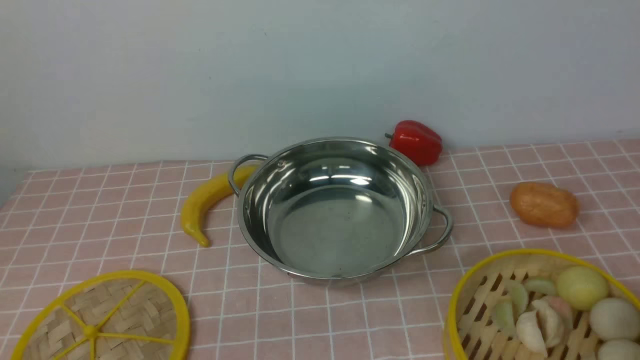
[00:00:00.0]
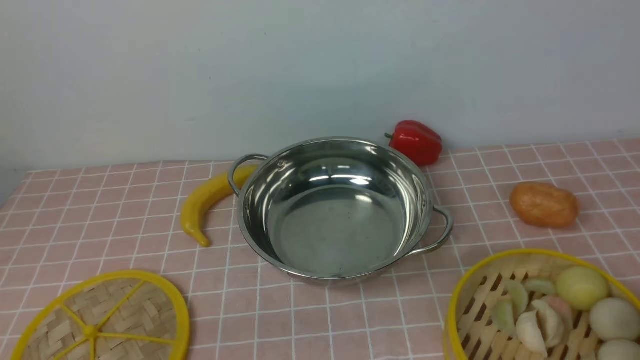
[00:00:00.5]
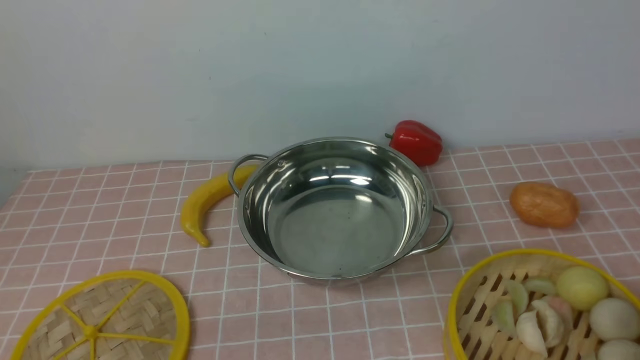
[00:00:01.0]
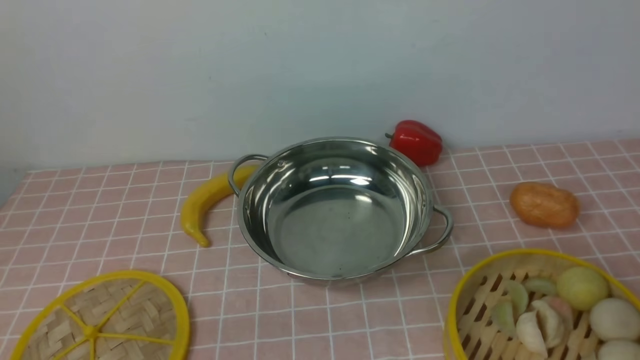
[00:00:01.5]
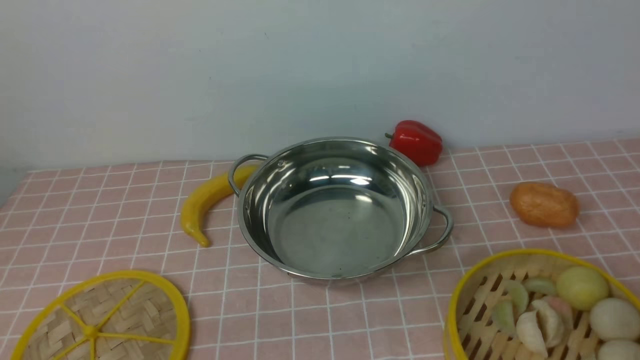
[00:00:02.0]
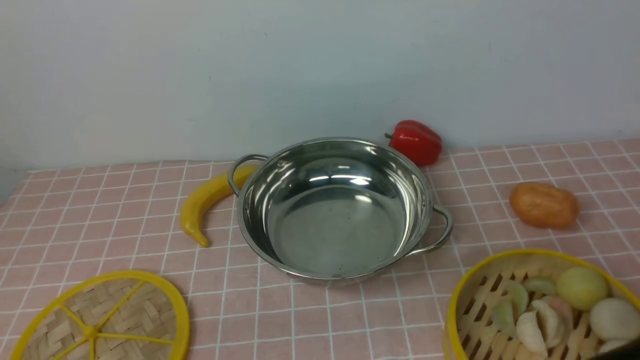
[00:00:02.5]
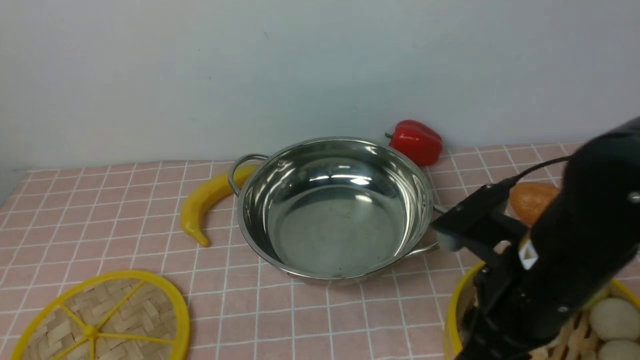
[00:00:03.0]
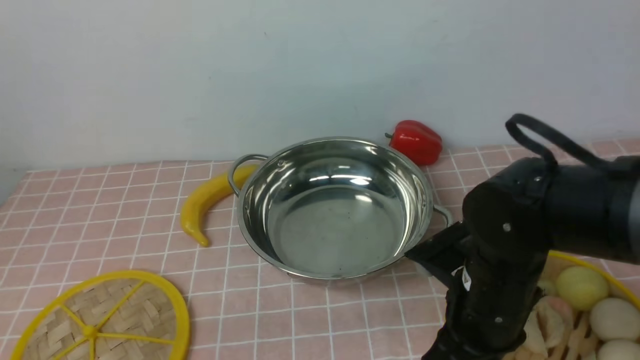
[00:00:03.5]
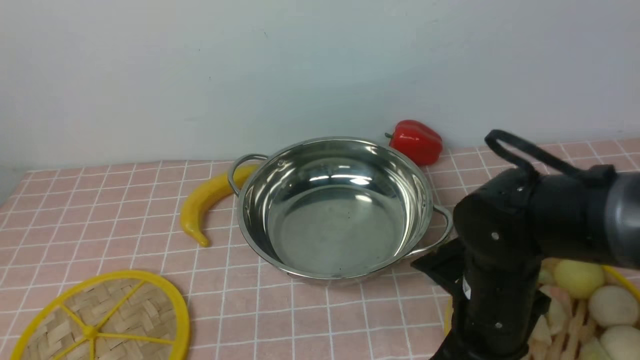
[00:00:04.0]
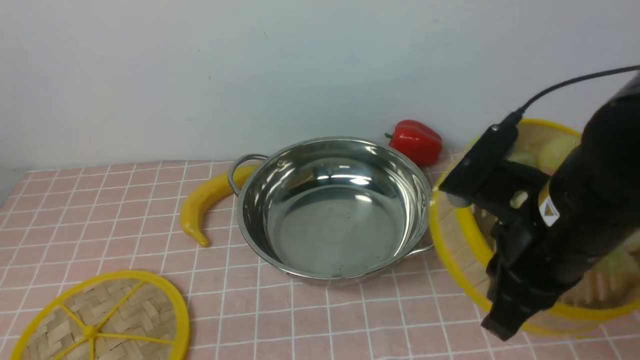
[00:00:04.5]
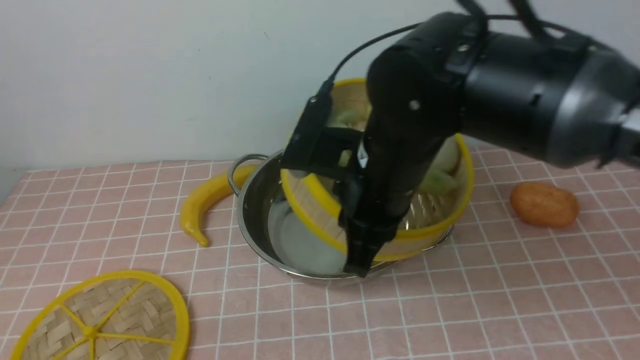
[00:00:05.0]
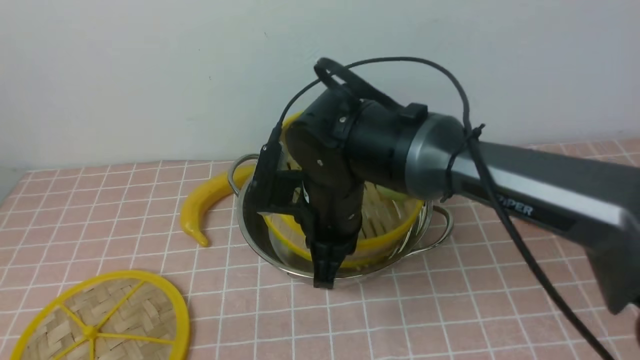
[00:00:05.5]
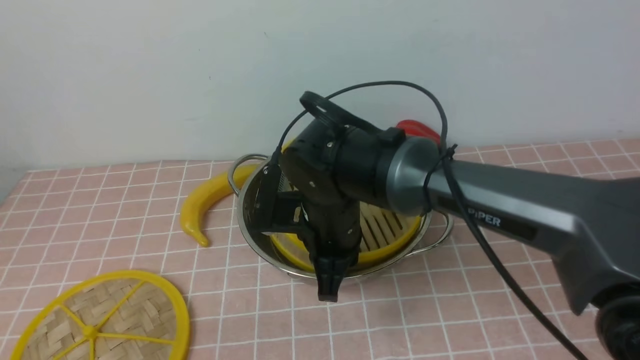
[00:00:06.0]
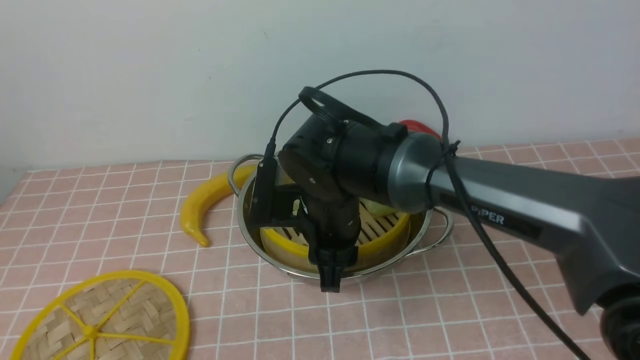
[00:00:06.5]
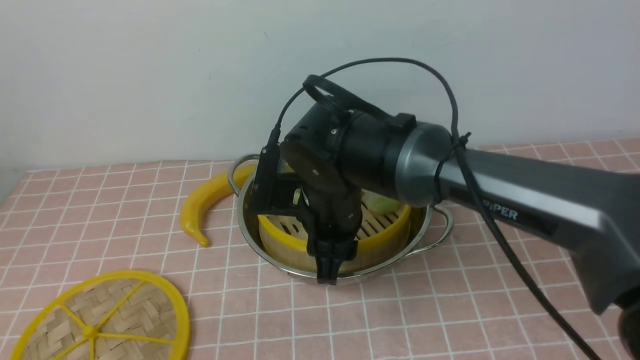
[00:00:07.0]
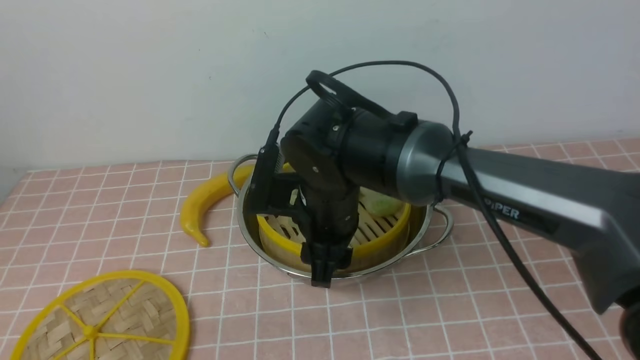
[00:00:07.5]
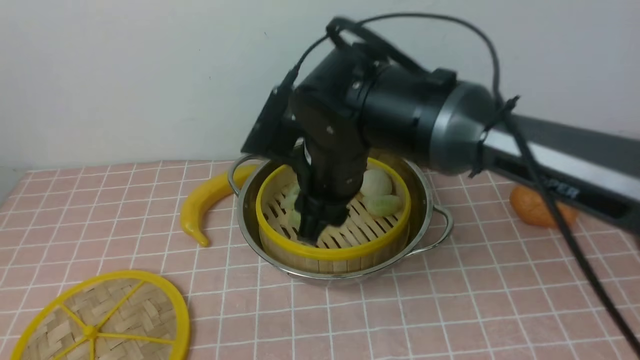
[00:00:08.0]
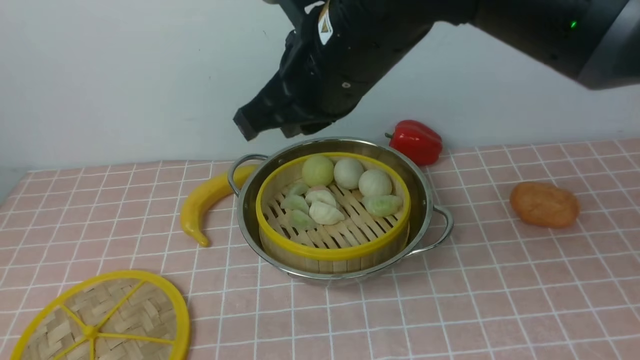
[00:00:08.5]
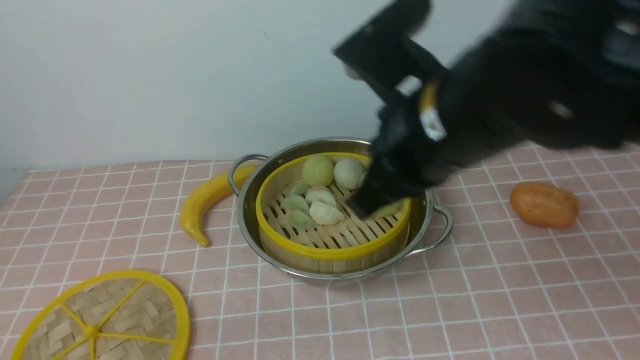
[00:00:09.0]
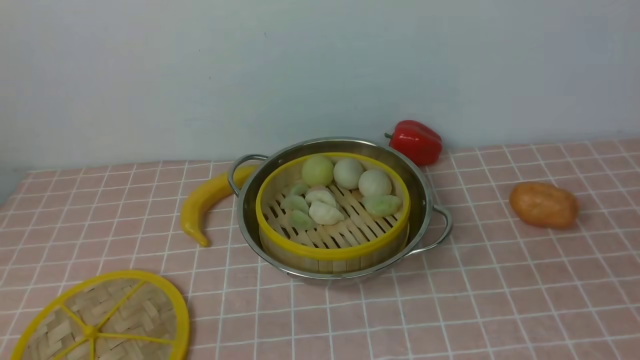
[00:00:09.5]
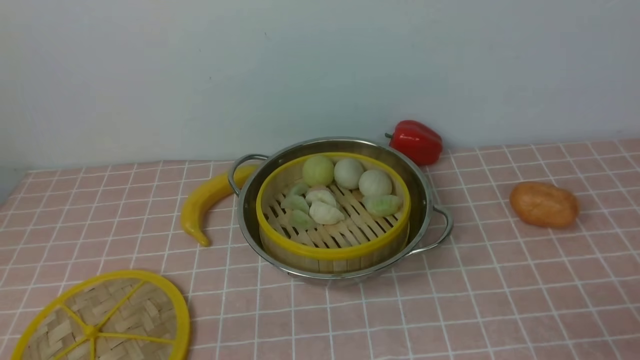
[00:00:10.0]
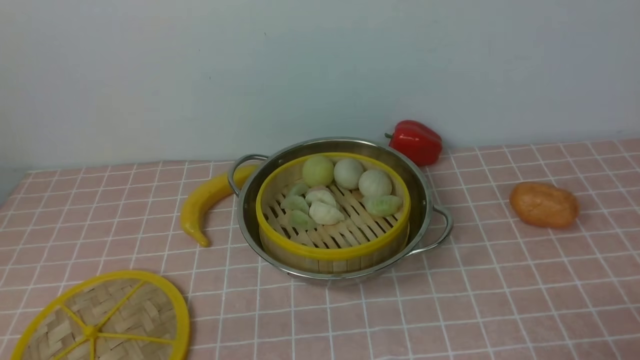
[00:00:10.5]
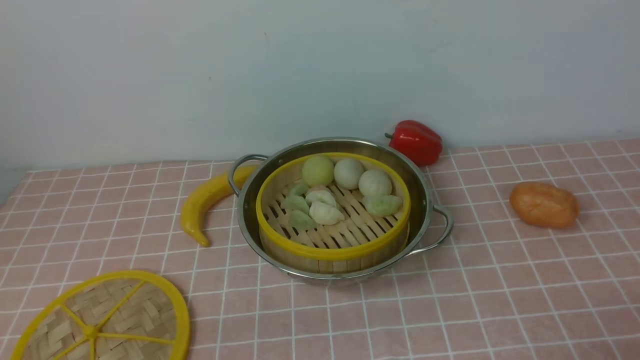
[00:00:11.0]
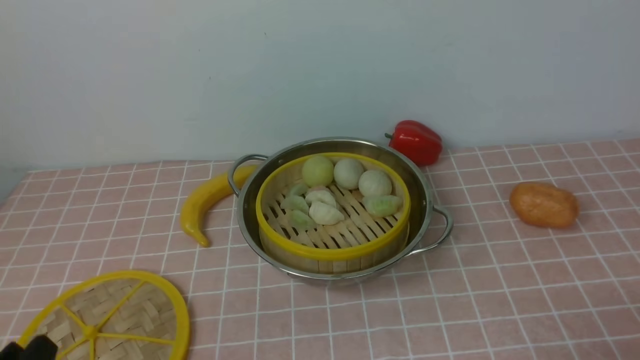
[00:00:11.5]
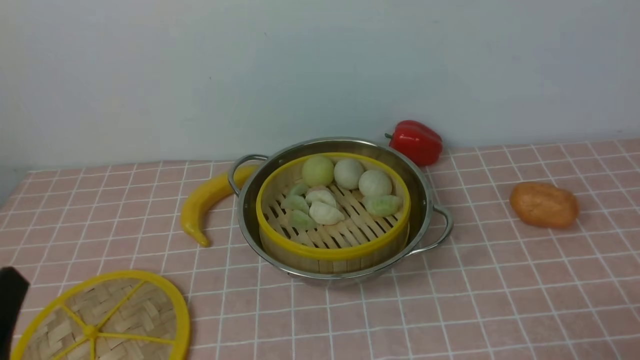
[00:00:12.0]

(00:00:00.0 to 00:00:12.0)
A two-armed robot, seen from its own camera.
Task of the whole recording: place the steamer in the pot on the pink tablecloth, and put the lid on the steamer.
Step, 00:00:00.0 - 00:00:04.0: use the right arm to lift the steamer closest to it.
Step, 00:00:04.5 - 00:00:07.5: use the right arm to put the steamer into the iron steamer pot in the middle.
00:00:02.0 - 00:00:04.0: The right gripper is displaced forward, to the left and downward by about 25 cm, and closes up.
00:00:04.0 - 00:00:06.0: The right gripper is displaced to the left and forward by some 15 cm.
00:00:06.0 - 00:00:08.0: The right gripper travels upward by approximately 10 cm, and opens its fingers.
00:00:08.0 - 00:00:10.0: The right gripper goes approximately 40 cm to the right and backward, and closes.
00:00:10.0 - 00:00:12.0: The left gripper goes some 10 cm upward.

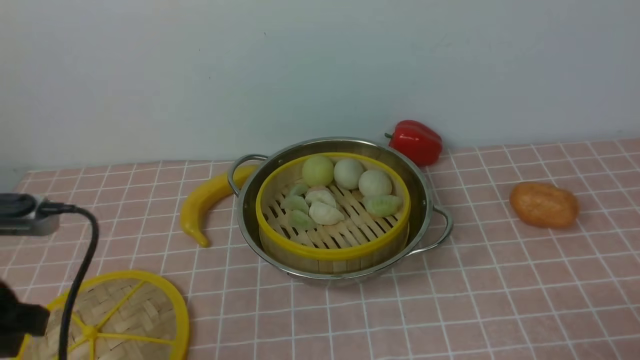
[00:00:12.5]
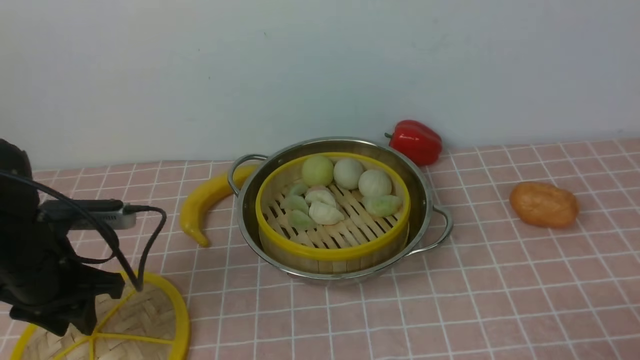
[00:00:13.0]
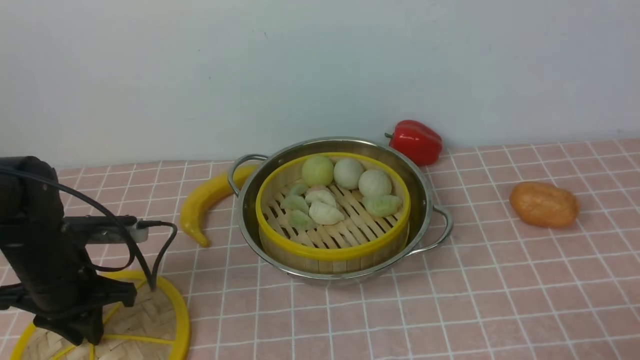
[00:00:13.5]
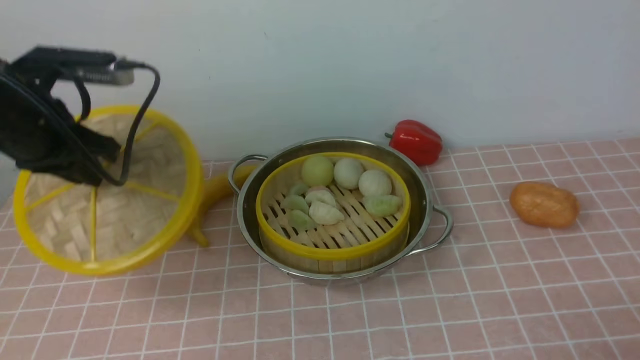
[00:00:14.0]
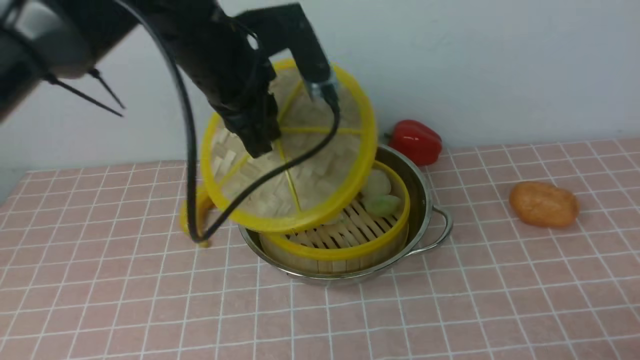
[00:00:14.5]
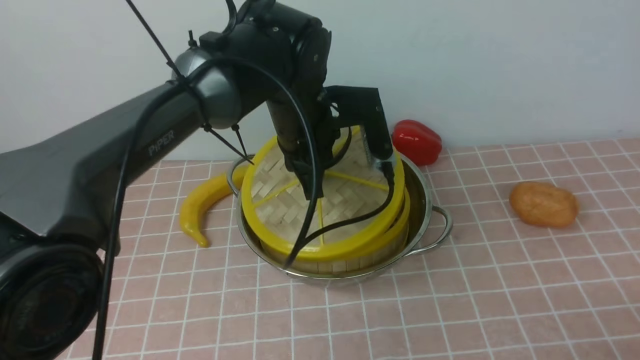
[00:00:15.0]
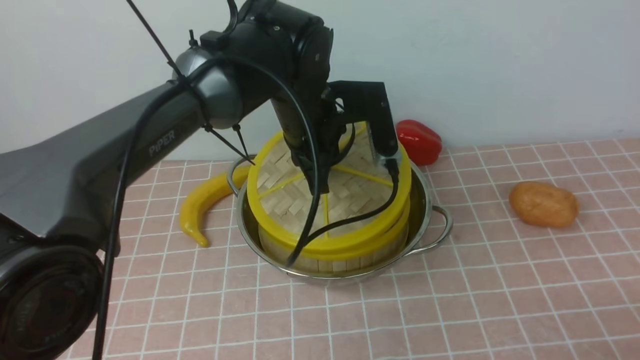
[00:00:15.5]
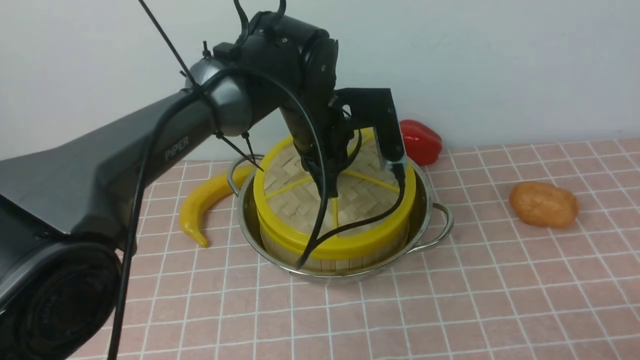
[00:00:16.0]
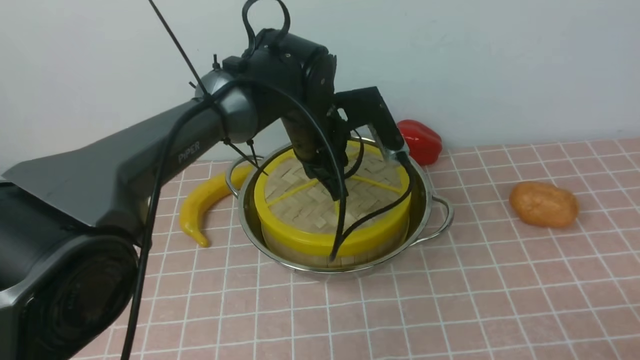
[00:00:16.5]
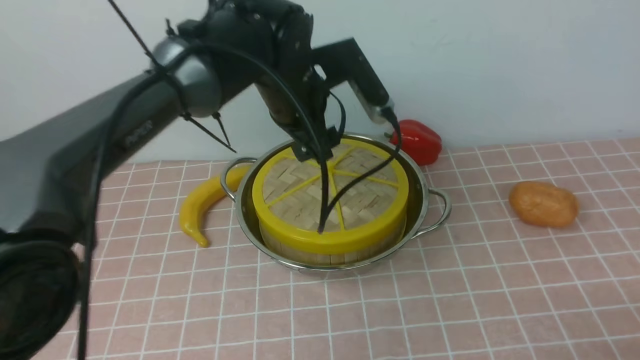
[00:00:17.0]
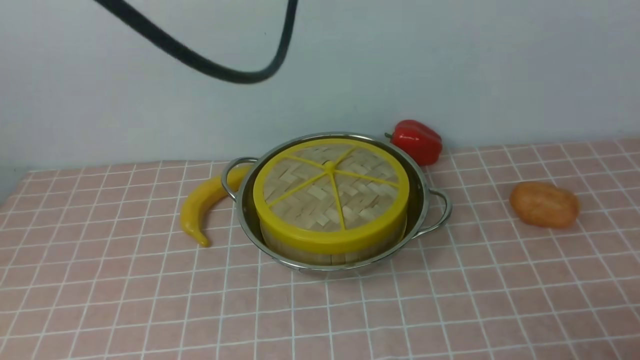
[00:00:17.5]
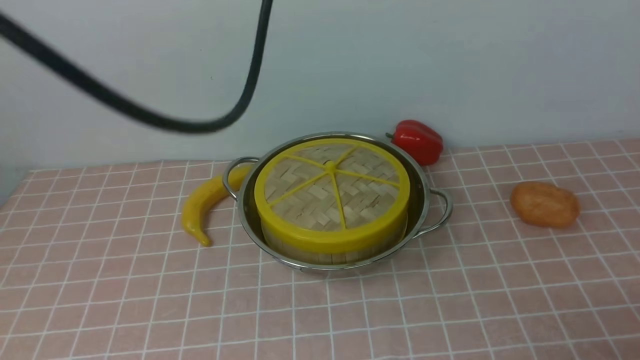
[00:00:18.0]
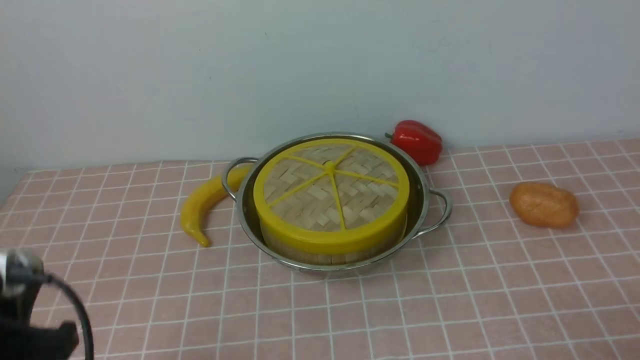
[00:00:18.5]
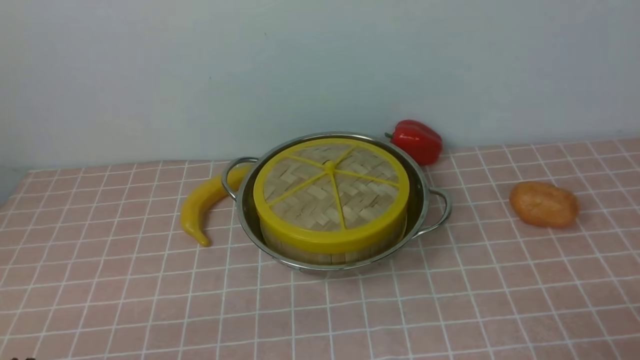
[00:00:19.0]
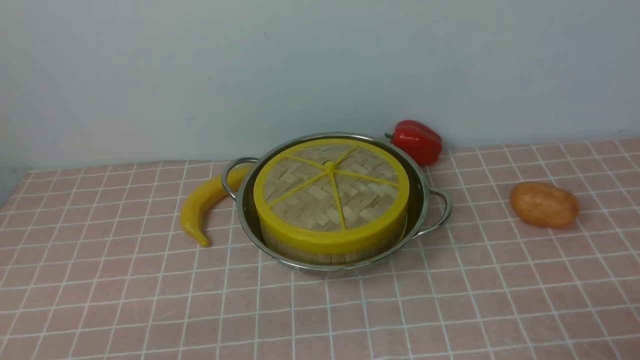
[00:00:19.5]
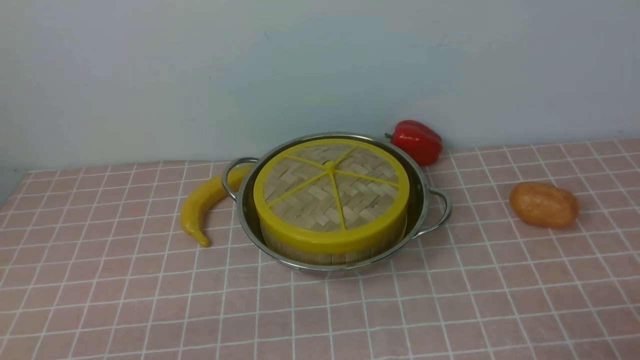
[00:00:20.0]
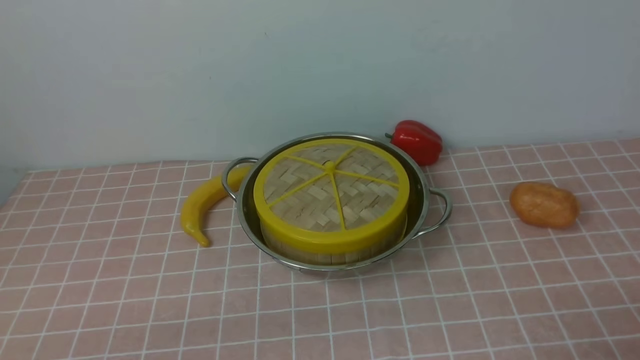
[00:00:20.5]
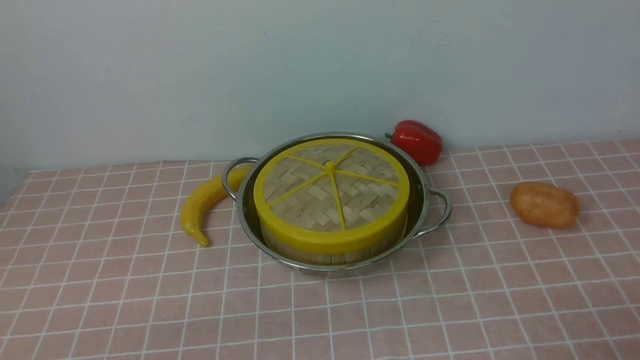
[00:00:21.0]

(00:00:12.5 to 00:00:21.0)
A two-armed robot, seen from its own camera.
Task of the whole recording: place the steamer in the pot on the pink tablecloth, and put the lid on the steamer.
Step, 00:00:14.0 - 00:00:17.0: use the left arm to place the steamer lid on the steamer.
00:00:12.5 - 00:00:14.5: The left gripper travels forward and to the right by approximately 25 cm, and closes up.
00:00:14.5 - 00:00:16.5: The left gripper heads downward and to the right, covering some 10 cm.
00:00:16.5 - 00:00:19.0: The left gripper heads backward and to the left, covering approximately 40 cm, and opens, then closes once more.
00:00:19.0 - 00:00:21.0: Neither gripper changes place.
